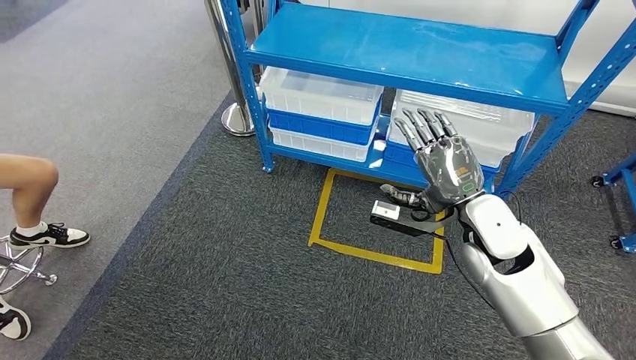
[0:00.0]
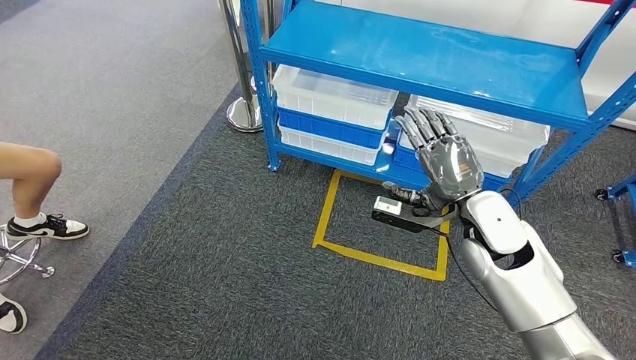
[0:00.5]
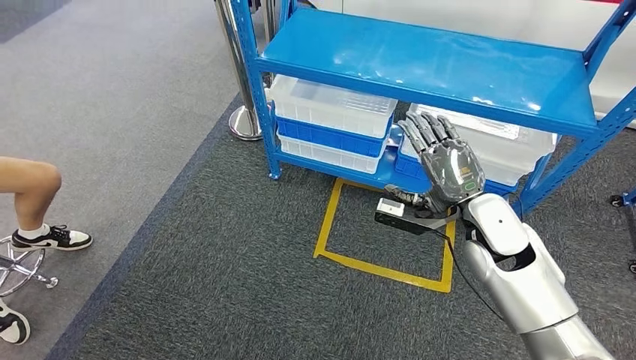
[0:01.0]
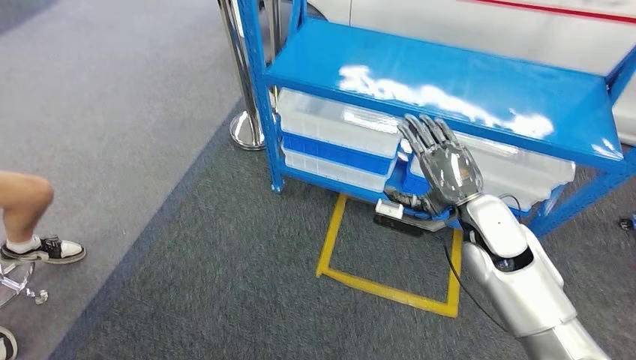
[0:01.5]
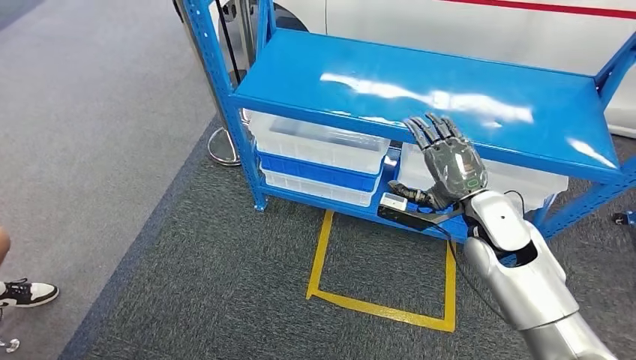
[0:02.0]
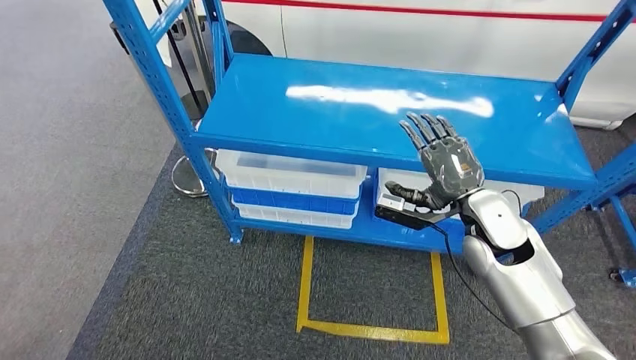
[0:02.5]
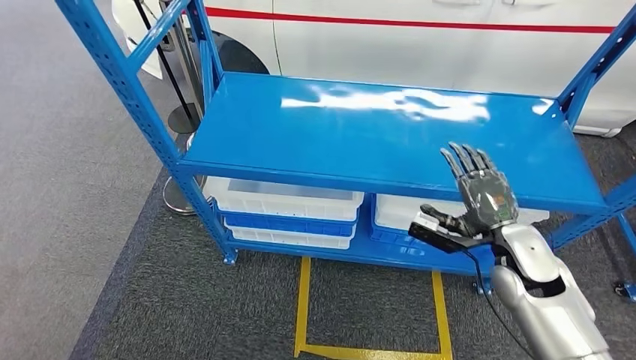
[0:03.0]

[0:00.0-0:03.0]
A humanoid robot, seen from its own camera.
Step, 0:00.0 to 0:03.0: Return to the initial position at the shelf.
